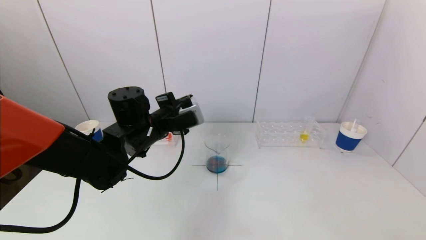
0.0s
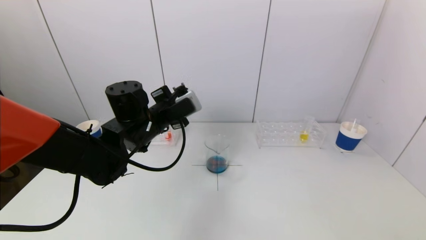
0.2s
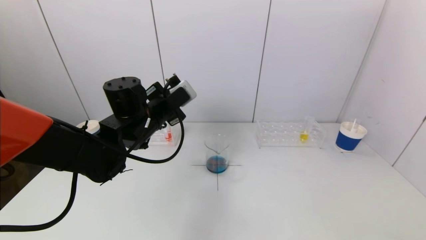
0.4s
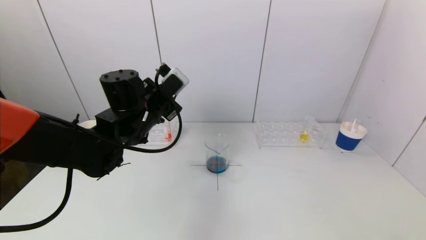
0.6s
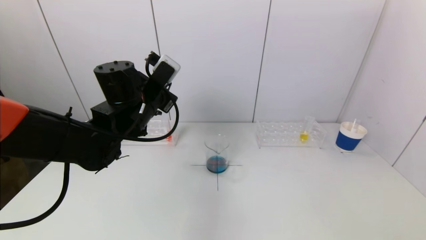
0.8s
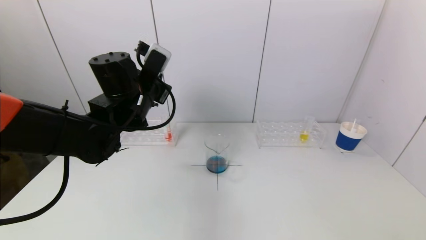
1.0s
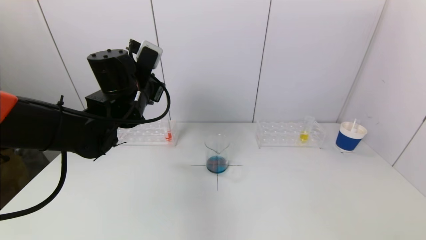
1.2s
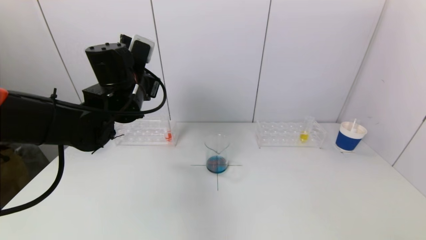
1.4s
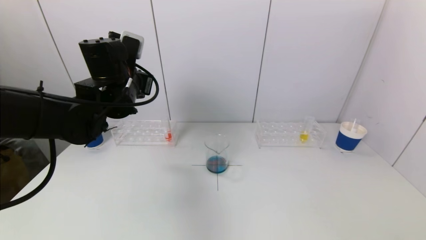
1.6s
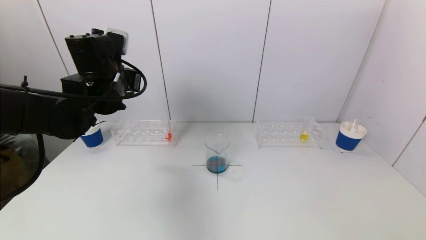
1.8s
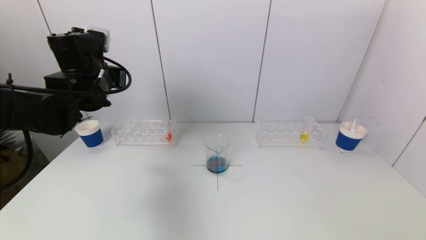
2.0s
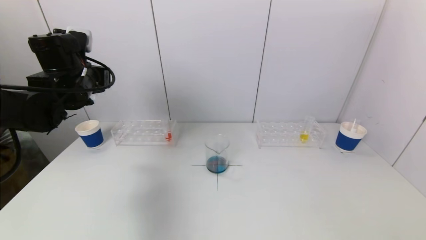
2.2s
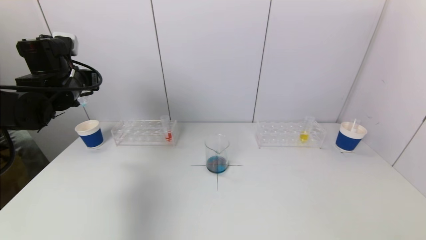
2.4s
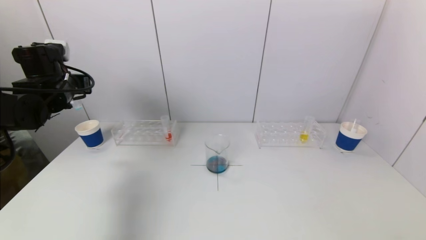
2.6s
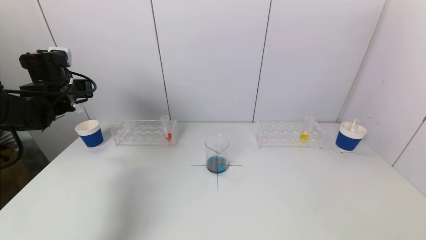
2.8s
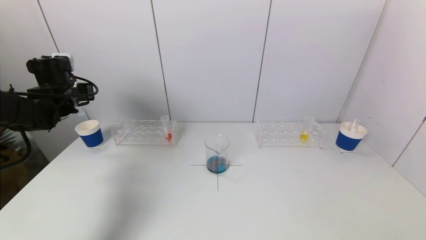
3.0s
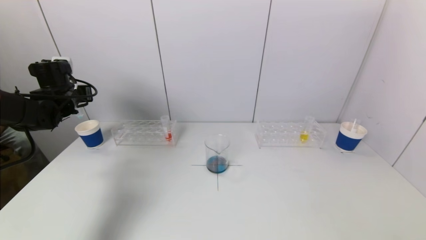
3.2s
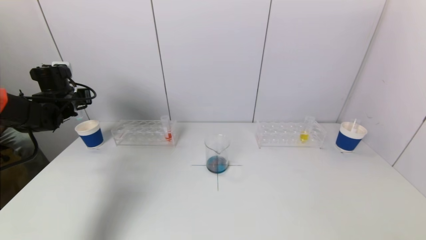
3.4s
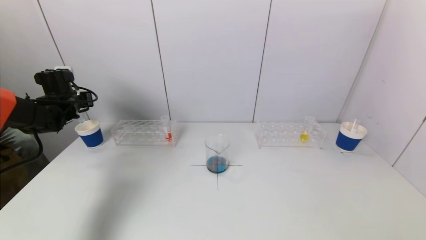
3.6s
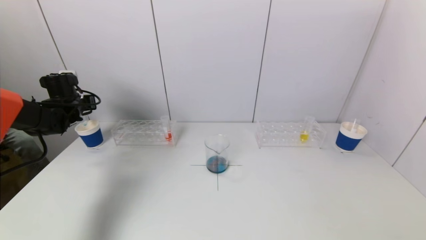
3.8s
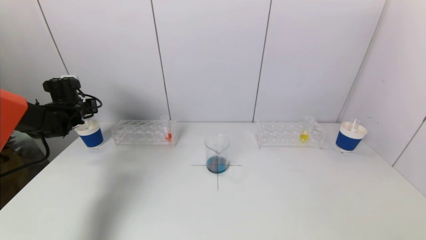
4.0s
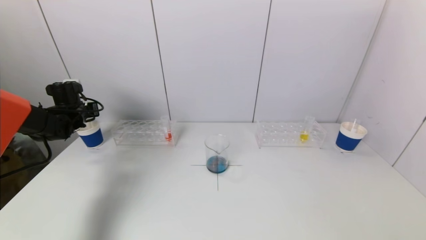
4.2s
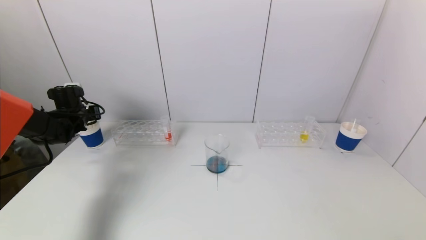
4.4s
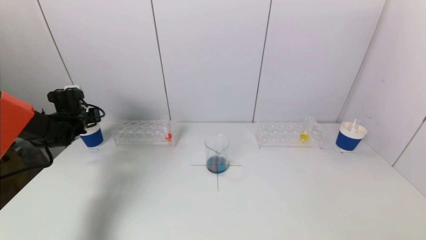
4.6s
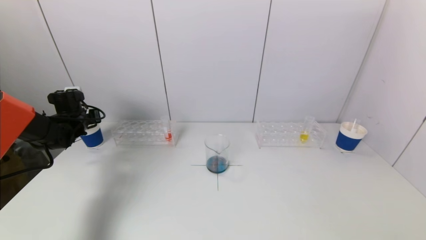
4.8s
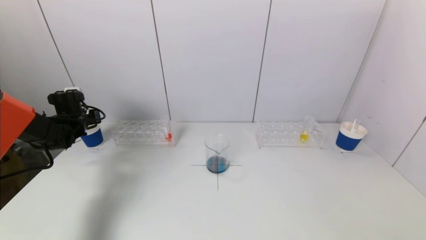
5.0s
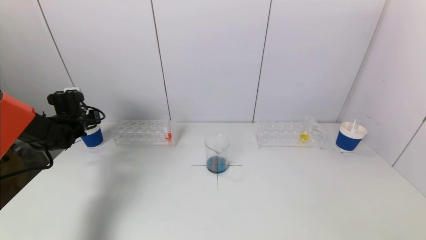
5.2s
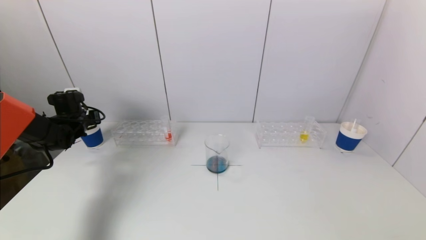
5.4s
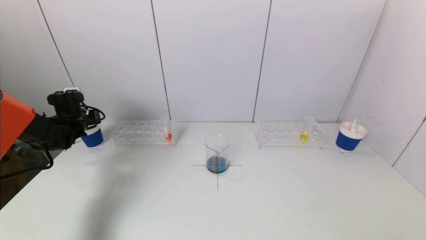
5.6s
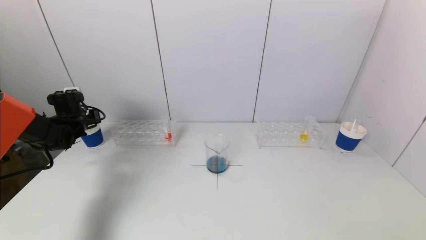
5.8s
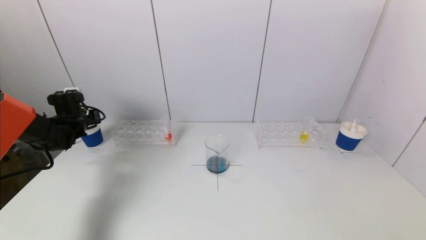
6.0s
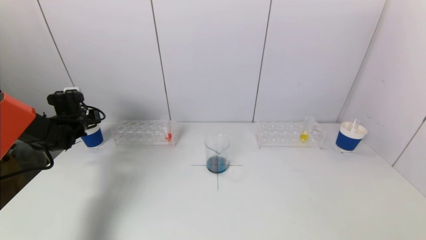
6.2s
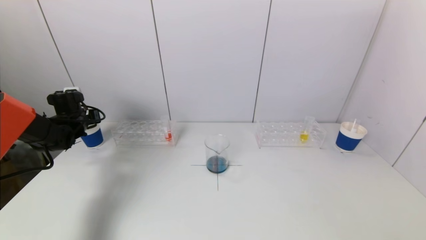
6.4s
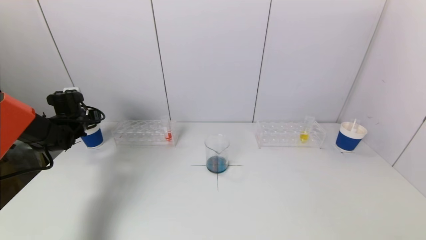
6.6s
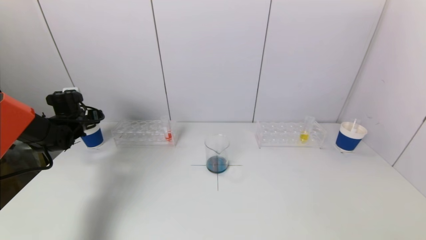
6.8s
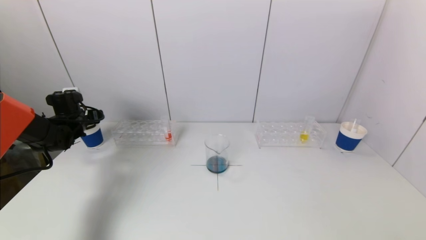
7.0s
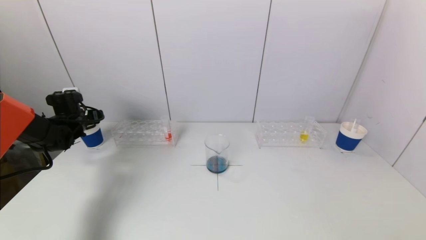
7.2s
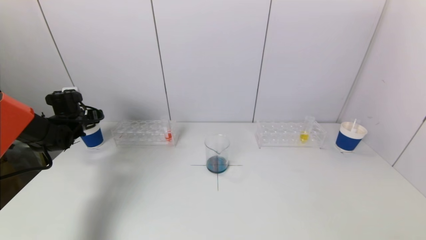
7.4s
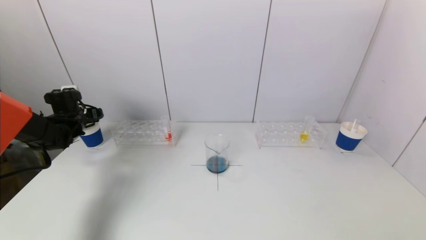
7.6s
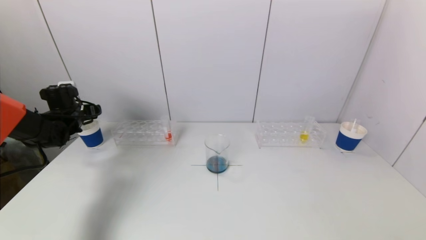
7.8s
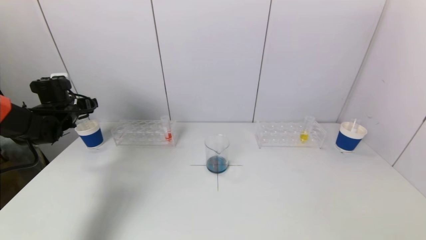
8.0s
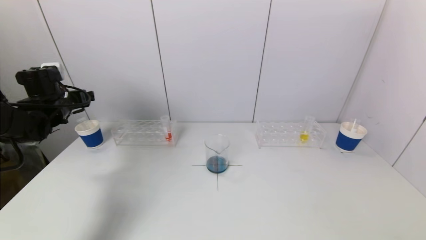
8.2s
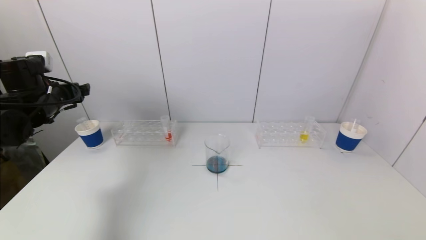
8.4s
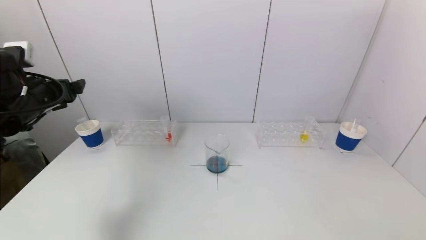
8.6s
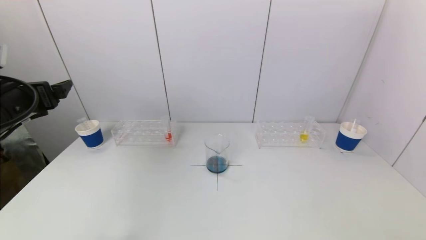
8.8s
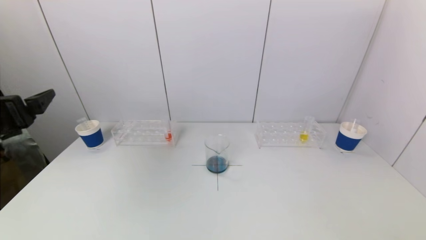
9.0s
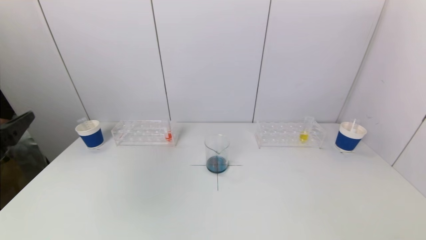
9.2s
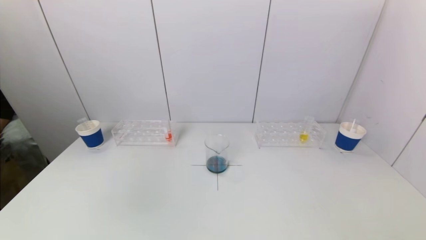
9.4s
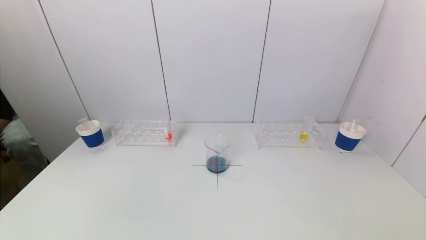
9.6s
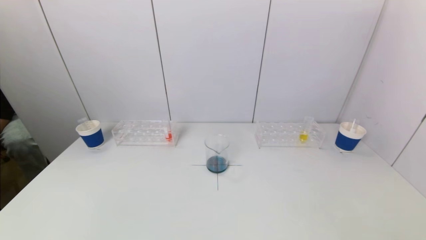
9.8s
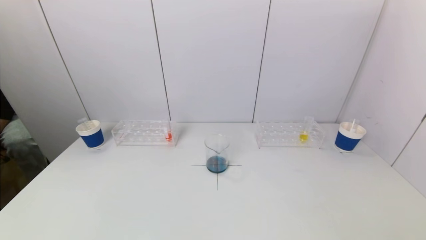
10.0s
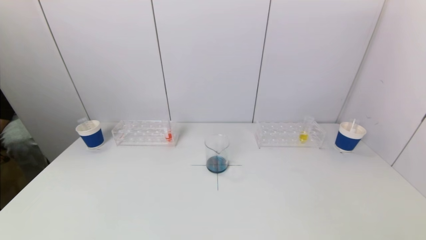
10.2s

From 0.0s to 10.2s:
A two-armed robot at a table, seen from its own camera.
Task of the whole recording: pick up a test tube with pigment on left test tube rack and a test tube with pigment on right test tube rack by grippers and pour them into the beaker.
Step, from 0.0s to 6.8s: Place the test tube into the paper cup with the left gripper.
From 0.0s to 1.4s: The left gripper travels upward by roughly 5 cm.
From 1.4s to 3.0s: The left gripper heads to the left, covering some 20 cm.
From 3.0s to 4.4s: The left gripper goes approximately 10 cm downward.
From 4.4s to 5.8s: The two grippers keep their place.
From 7.2s to 8.8s: The left gripper shifts some 25 cm backward and upward.
From 8.8s to 10.2s: The left gripper travels backward by roughly 25 cm.

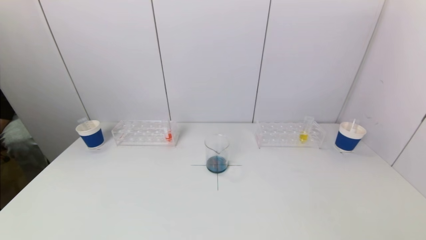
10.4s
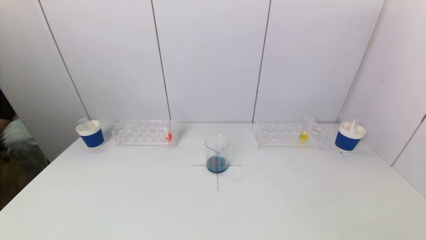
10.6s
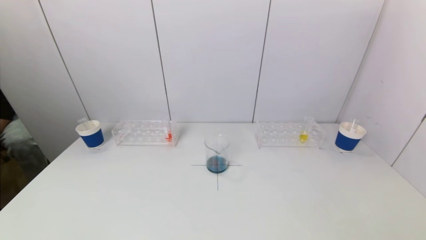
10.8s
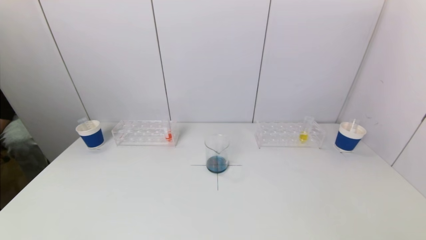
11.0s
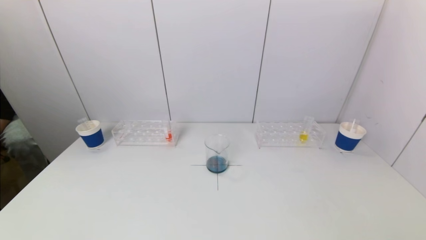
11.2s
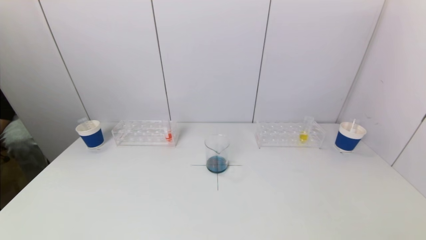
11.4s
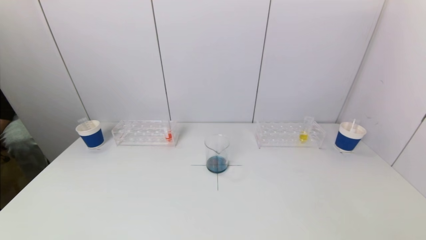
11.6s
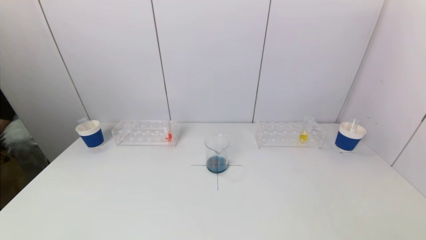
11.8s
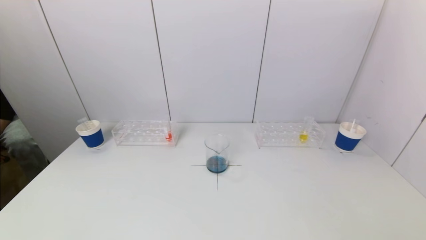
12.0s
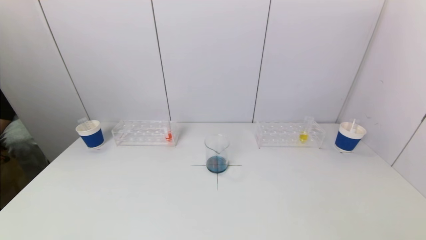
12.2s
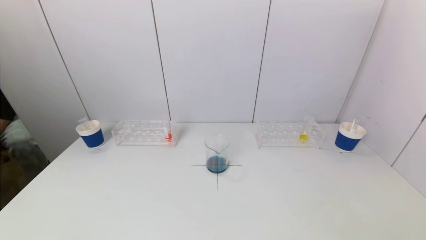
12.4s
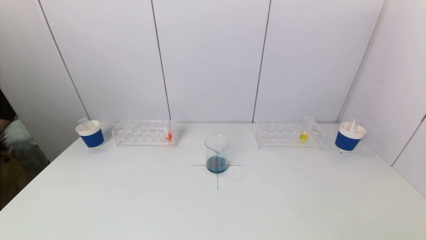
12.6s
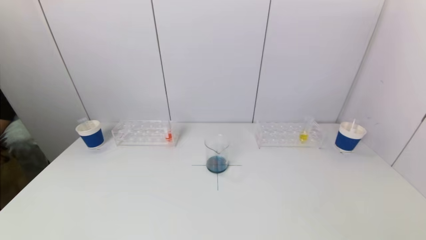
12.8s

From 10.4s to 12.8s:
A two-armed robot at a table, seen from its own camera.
Task of the whole recording: pick up a test tube with pigment on left test tube rack and a test tube with pigment on right test tube rack by grippers and pour them into the beaker.
From 11.6s to 12.8s: Both grippers stay put.

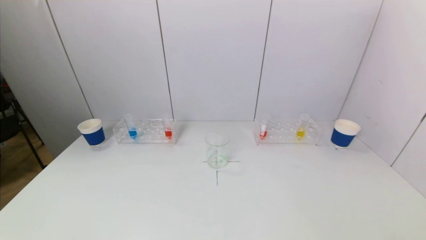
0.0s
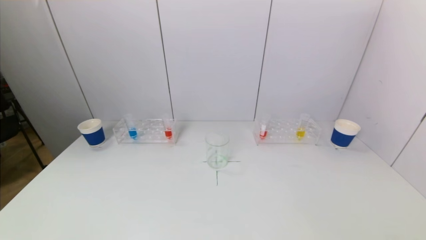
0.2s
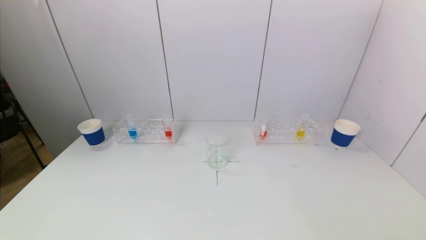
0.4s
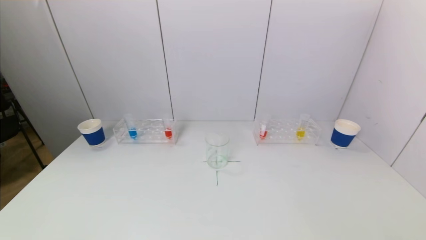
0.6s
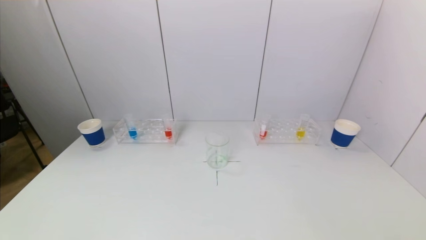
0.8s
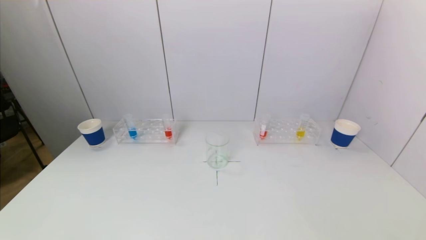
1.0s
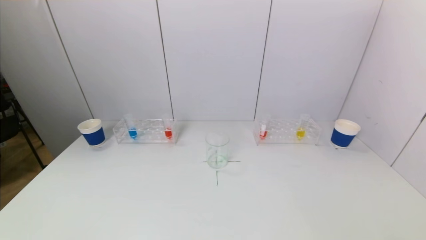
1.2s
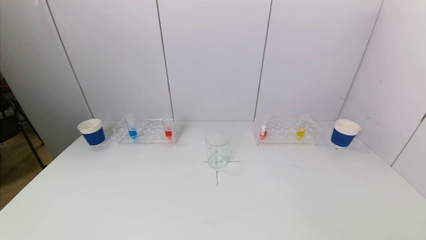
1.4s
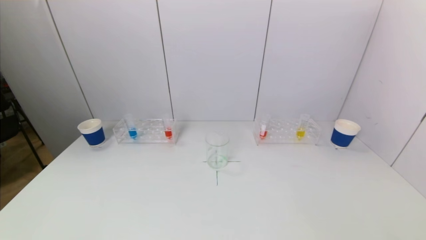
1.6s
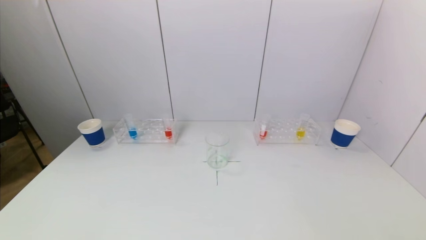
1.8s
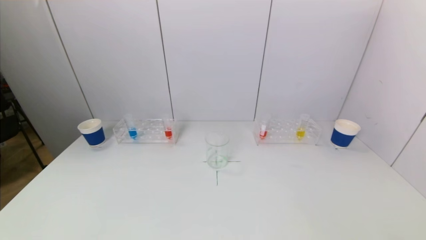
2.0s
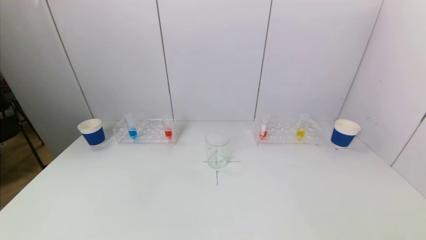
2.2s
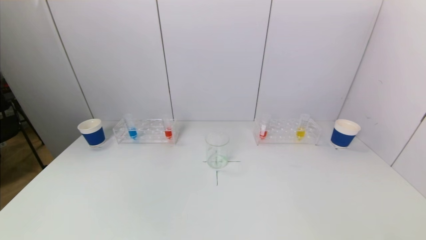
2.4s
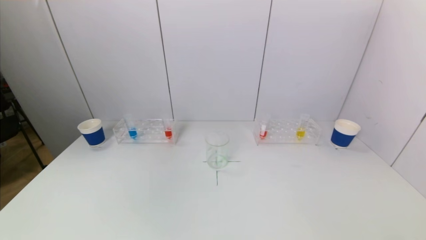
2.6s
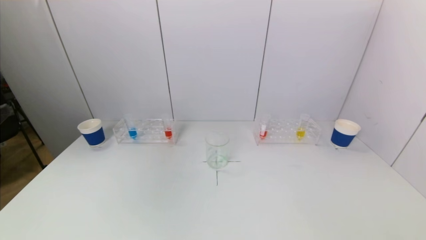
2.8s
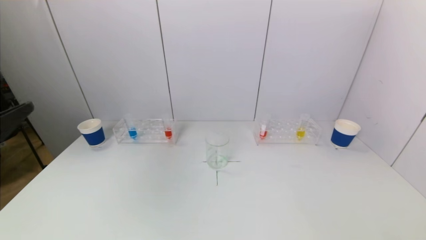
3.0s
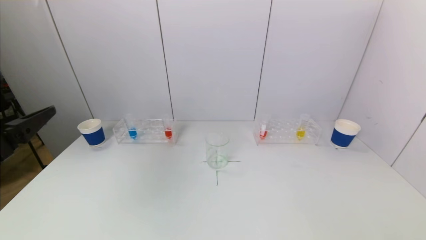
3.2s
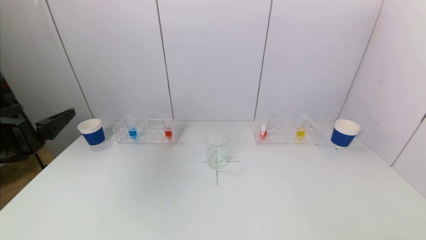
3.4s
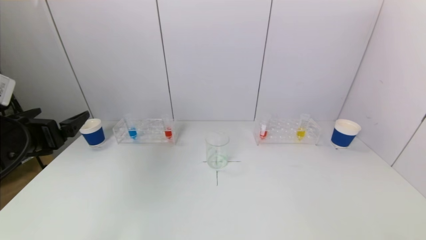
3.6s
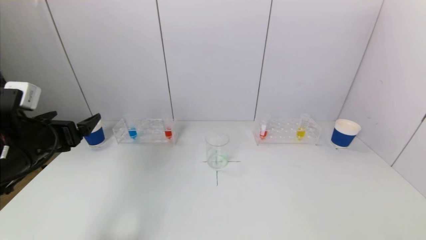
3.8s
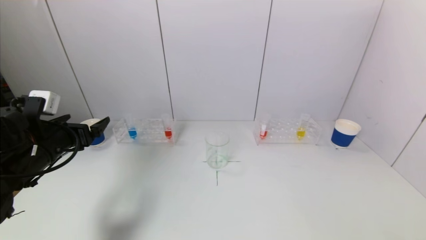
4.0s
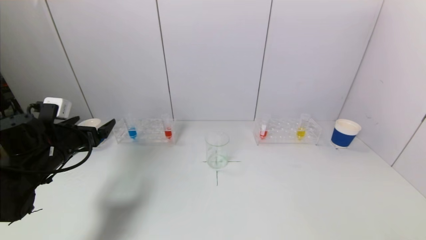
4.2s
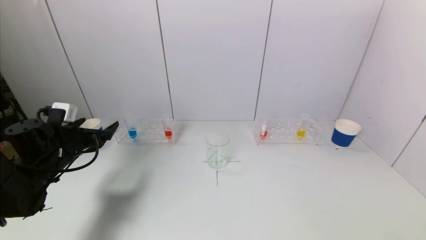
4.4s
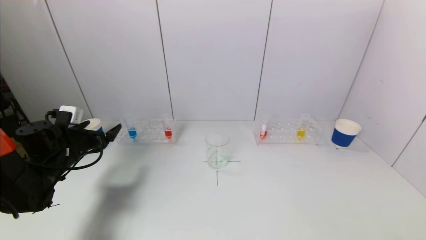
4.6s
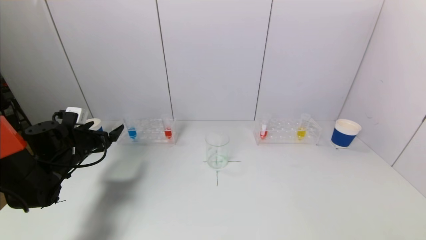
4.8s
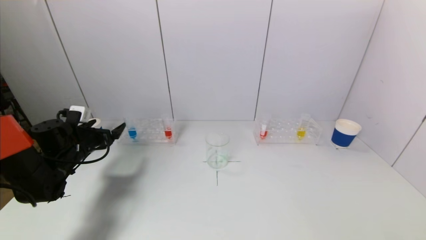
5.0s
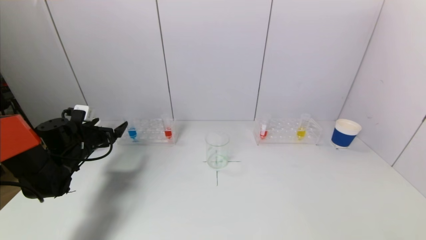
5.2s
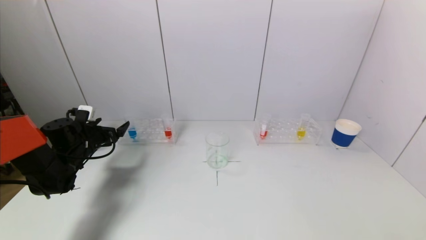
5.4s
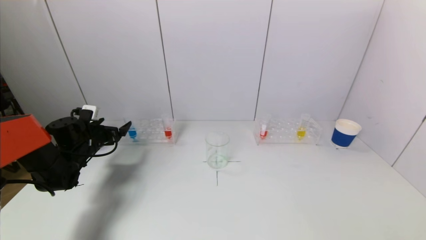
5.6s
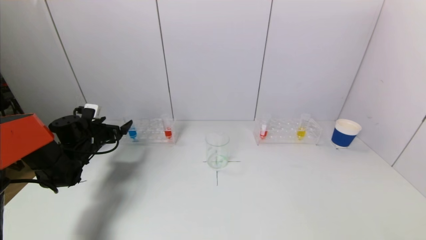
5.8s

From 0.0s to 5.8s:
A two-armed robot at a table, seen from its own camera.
Task of the whole recording: pick up a test tube with pigment on left test tube rack and a test tube with pigment on right test tube rack by grippers and pour them into the beaker.
From 0.0s to 1.4s: Both grippers stay about where they are.
From 2.8s to 4.4s: The left gripper heads forward and downward, covering some 30 cm.
From 4.4s to 5.8s: The left gripper moves forward, about 10 cm.
